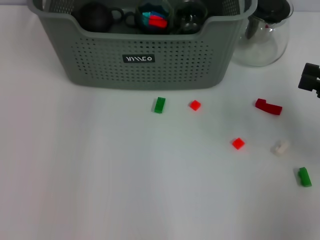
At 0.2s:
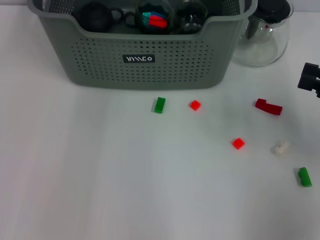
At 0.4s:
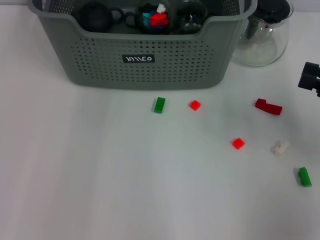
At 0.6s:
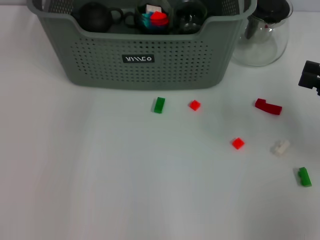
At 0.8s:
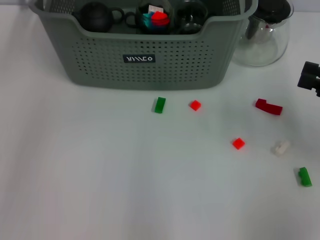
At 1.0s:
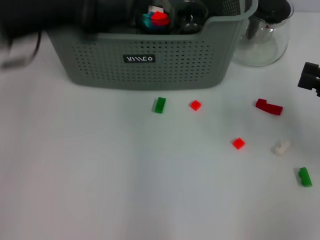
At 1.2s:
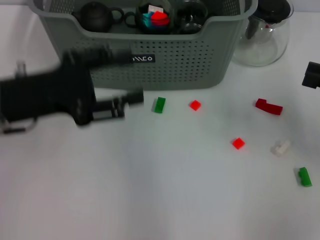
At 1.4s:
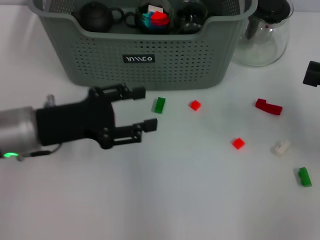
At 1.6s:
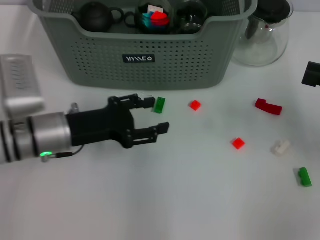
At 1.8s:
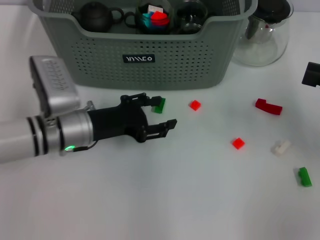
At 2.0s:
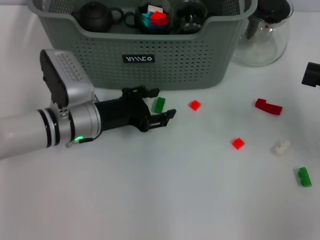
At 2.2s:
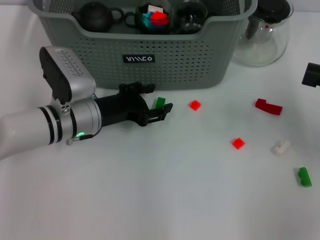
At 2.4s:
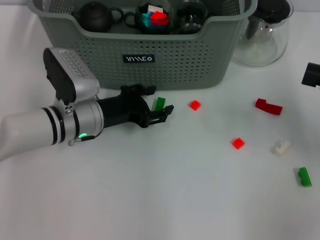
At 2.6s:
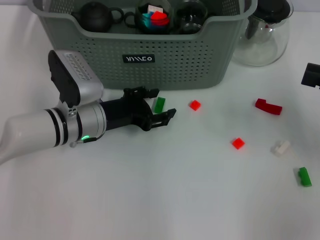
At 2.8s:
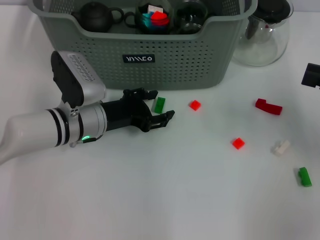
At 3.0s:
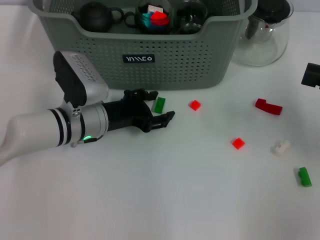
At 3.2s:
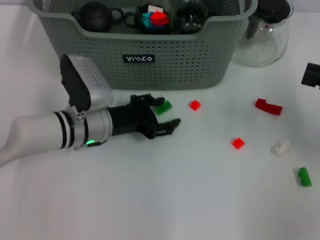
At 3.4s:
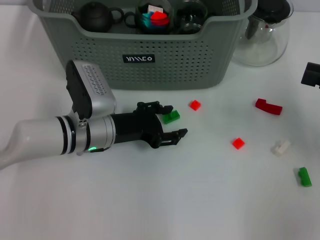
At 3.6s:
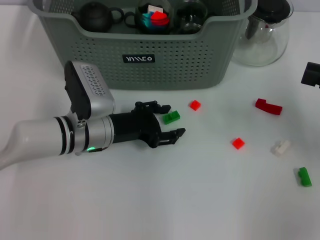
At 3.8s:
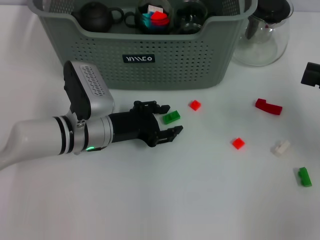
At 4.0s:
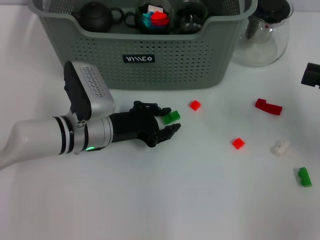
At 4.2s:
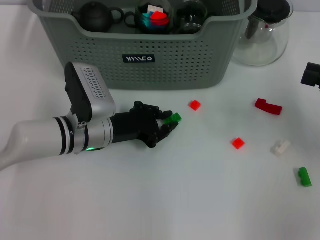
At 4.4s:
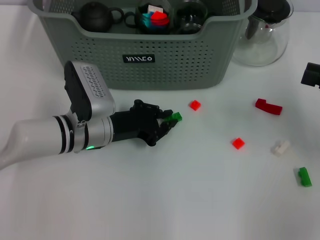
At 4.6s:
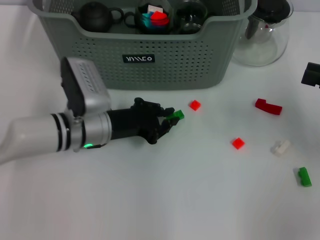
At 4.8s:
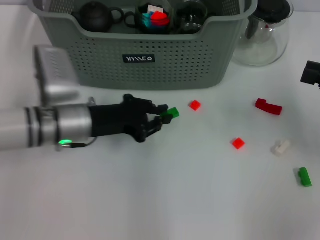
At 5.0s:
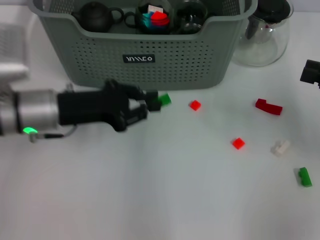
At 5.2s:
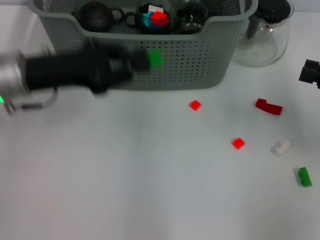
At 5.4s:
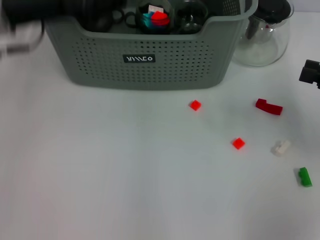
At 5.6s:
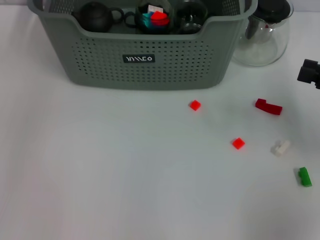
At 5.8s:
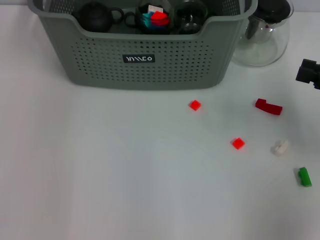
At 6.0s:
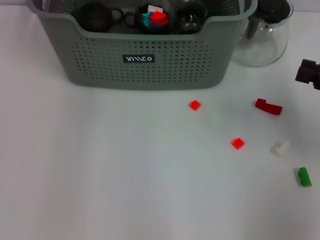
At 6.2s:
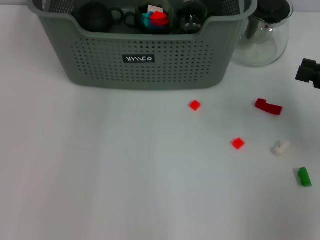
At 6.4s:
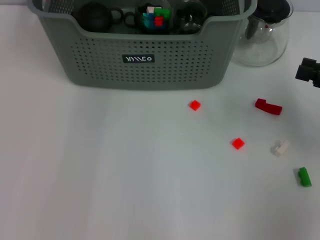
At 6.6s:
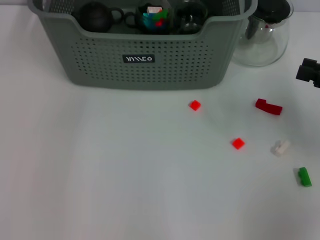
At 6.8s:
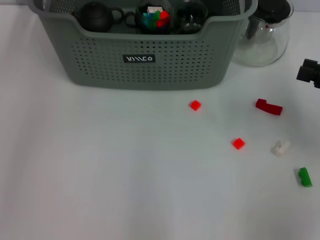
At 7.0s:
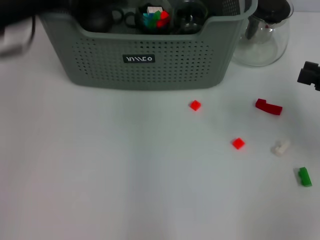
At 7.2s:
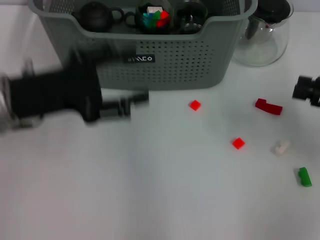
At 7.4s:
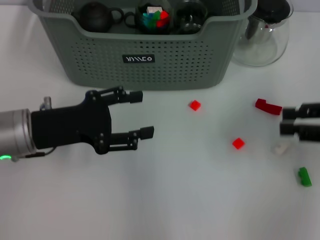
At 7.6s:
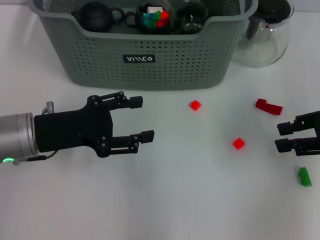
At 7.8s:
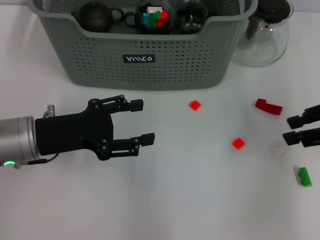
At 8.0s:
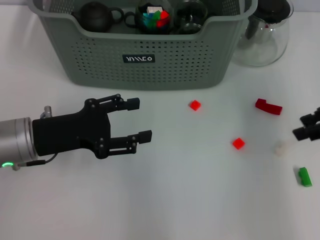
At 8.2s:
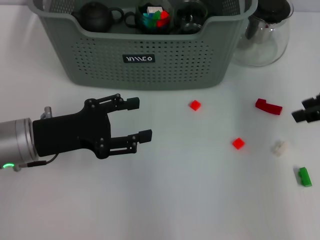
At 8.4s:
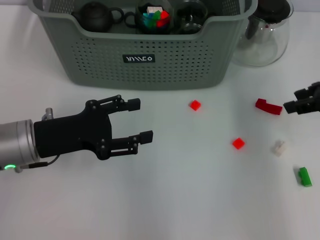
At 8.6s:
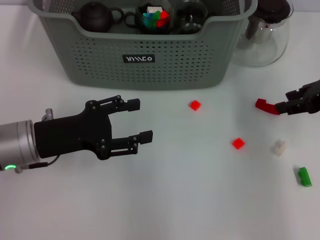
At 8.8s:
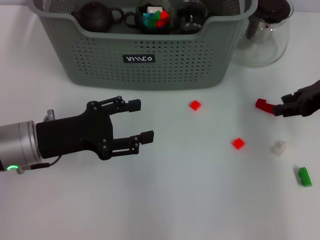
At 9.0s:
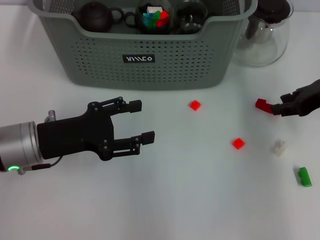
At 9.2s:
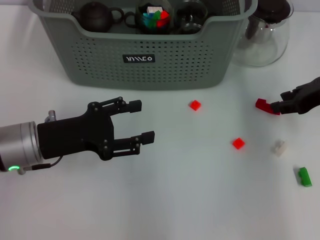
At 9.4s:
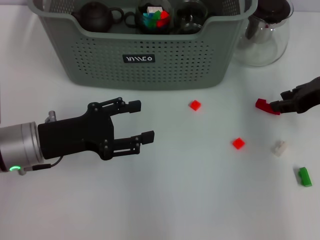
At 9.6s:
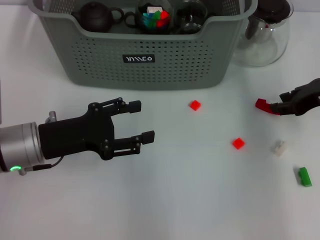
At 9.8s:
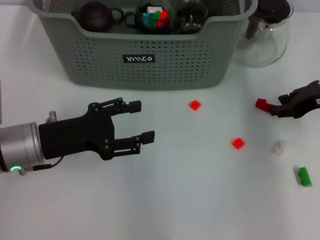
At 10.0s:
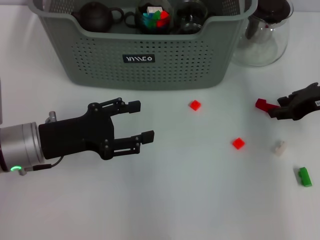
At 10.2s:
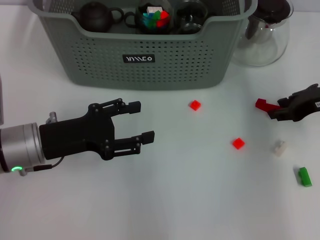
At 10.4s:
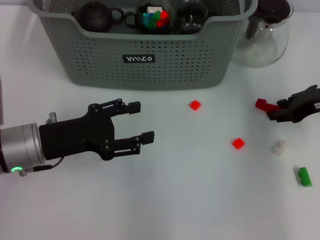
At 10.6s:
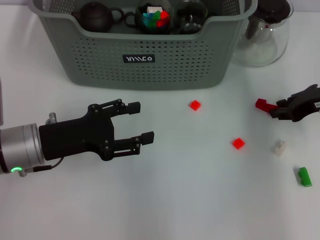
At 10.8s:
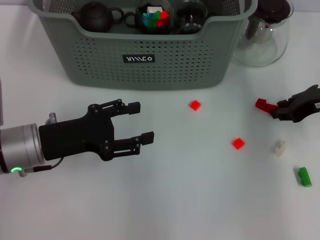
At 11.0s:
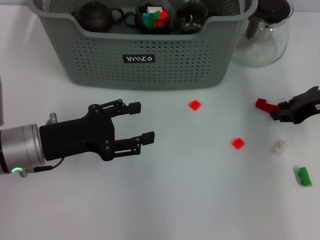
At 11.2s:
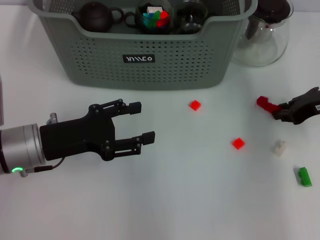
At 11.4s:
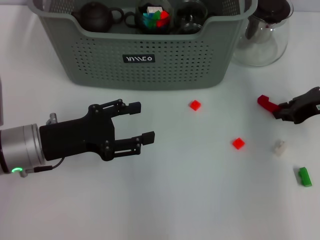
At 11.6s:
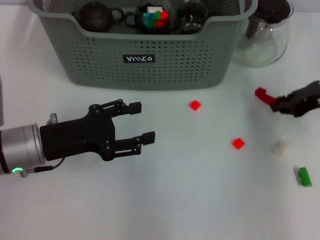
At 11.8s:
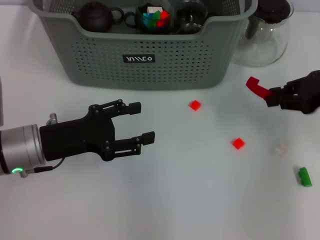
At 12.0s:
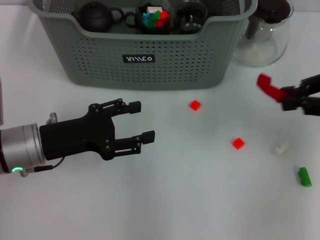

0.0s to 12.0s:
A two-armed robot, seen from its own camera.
Task of the whole recording: pick up the teacup on the table and place it into the storage bin, pick up the block on the table and place it into the storage bin.
Step, 0.4s to 4.2s: Grasp the green block with left gripper.
Step, 4.4s to 6.2s: Place the green block in the storage box with left gripper.
Step, 6.4s to 11.2s: Grasp the red block with right gripper.
0.0s to 1.6s: The left gripper travels backward and downward by approximately 25 cm, and opens up.
1.6s to 3.0s: The left gripper changes place by some 5 cm.
3.0s to 4.4s: The left gripper closes its fingers.
4.4s to 6.0s: The left gripper heads upward and forward, covering some 30 cm.
6.0s to 7.6s: The left gripper goes some 30 cm backward, downward and to the left, and opens.
7.6s to 9.0s: The right gripper goes some 5 cm forward.
9.0s to 10.4s: The grippers make only small movements.
10.4s to 12.0s: The right gripper moves upward and backward, roughly 10 cm.

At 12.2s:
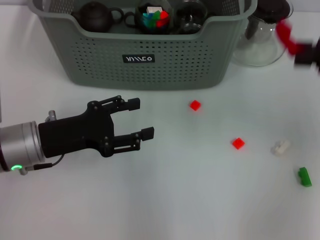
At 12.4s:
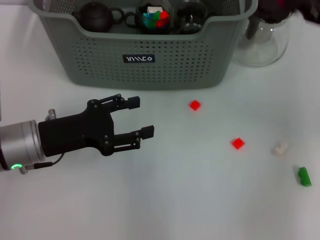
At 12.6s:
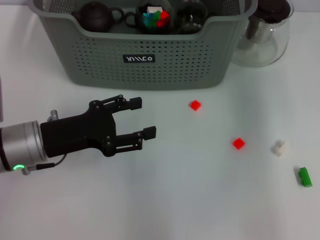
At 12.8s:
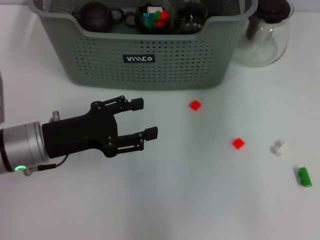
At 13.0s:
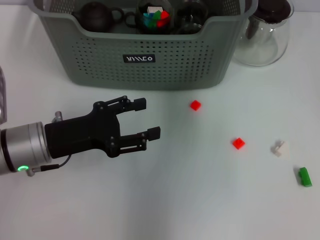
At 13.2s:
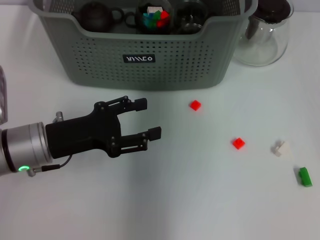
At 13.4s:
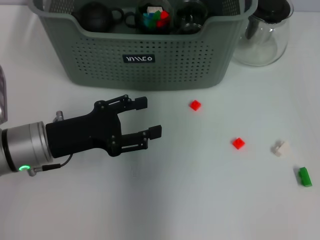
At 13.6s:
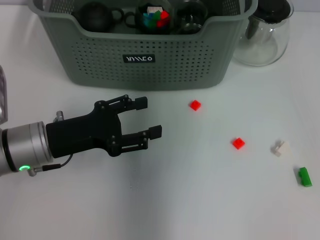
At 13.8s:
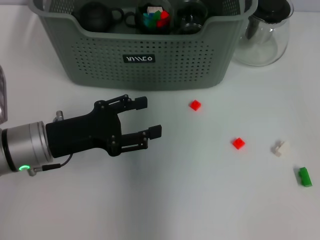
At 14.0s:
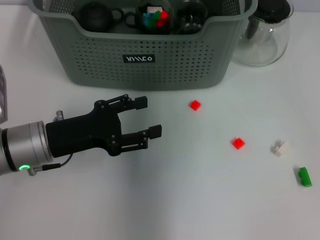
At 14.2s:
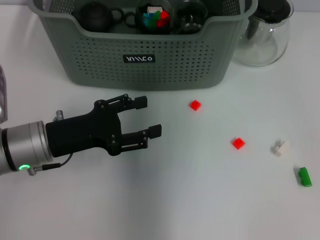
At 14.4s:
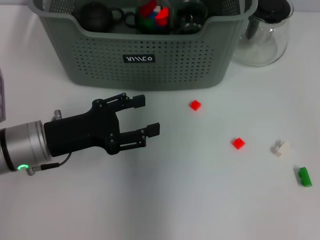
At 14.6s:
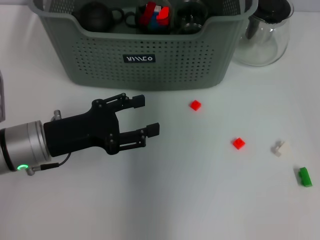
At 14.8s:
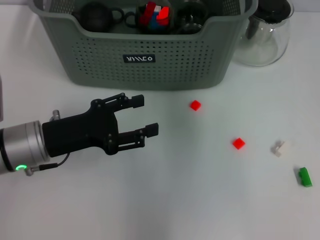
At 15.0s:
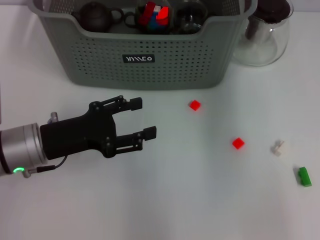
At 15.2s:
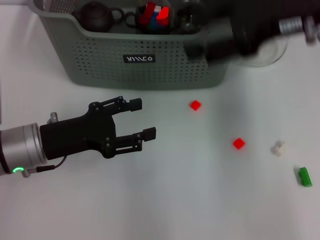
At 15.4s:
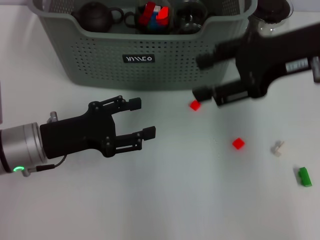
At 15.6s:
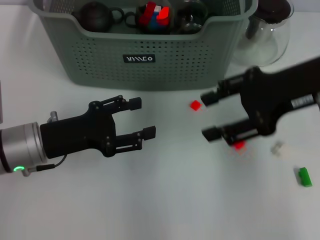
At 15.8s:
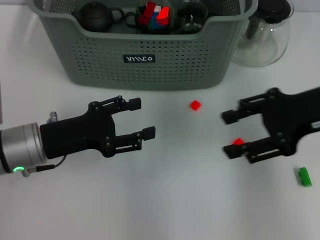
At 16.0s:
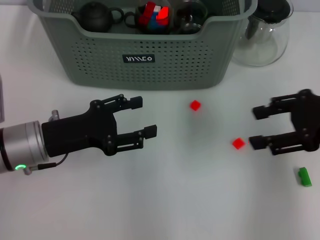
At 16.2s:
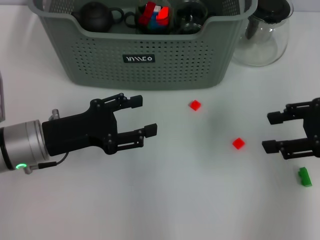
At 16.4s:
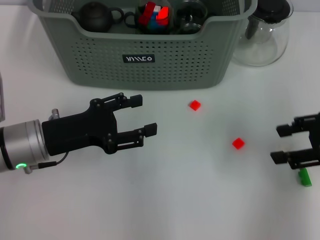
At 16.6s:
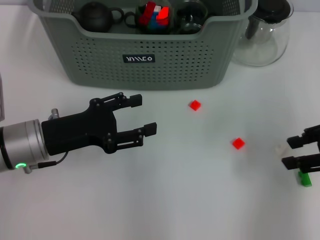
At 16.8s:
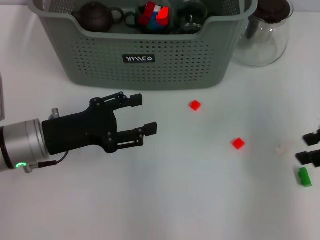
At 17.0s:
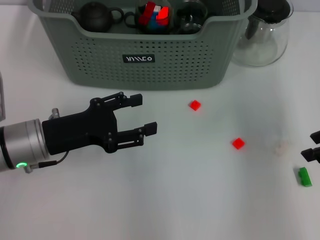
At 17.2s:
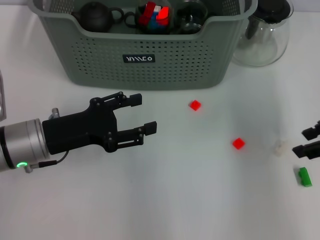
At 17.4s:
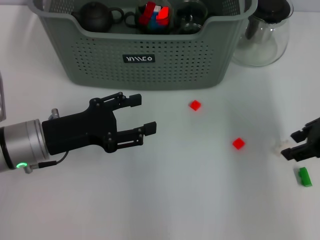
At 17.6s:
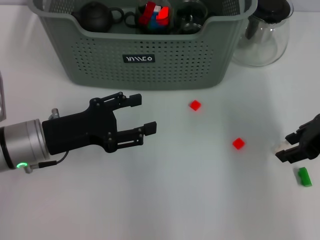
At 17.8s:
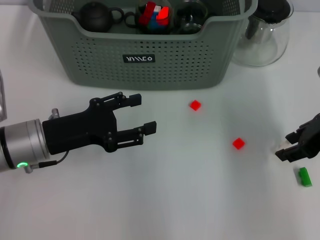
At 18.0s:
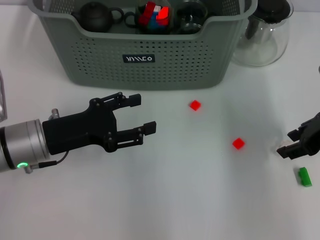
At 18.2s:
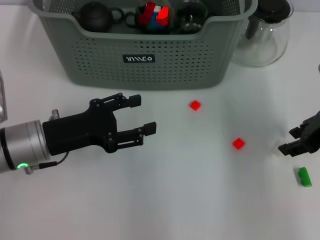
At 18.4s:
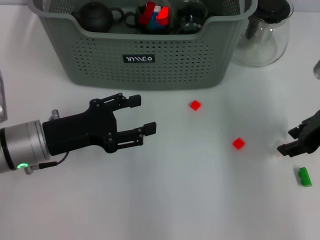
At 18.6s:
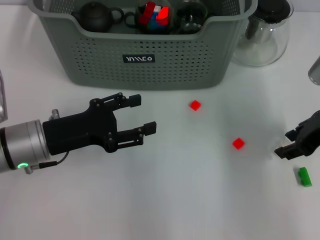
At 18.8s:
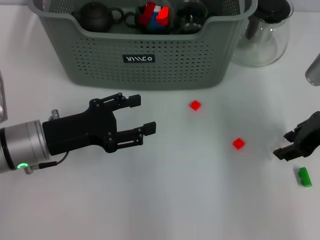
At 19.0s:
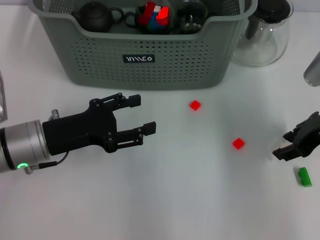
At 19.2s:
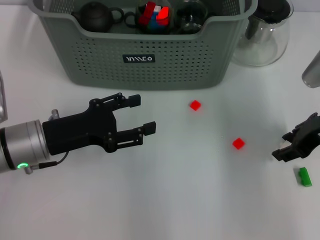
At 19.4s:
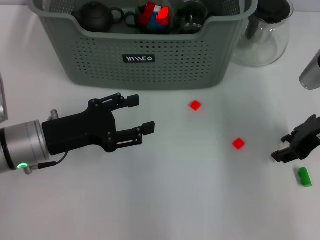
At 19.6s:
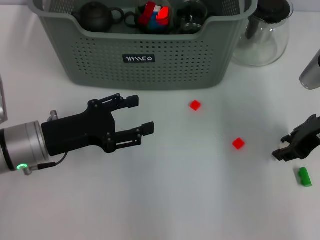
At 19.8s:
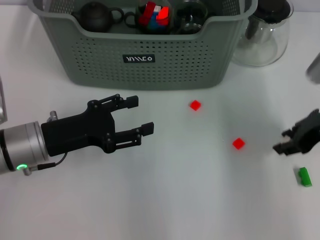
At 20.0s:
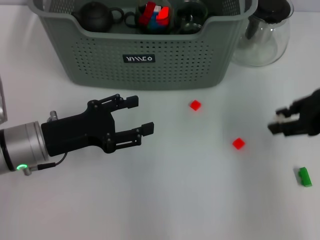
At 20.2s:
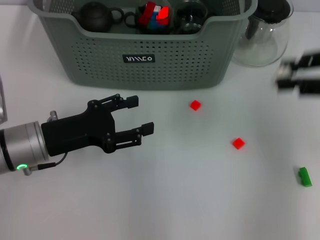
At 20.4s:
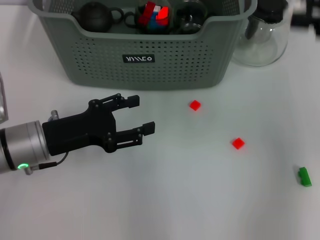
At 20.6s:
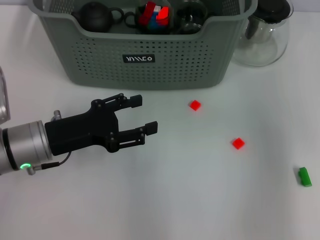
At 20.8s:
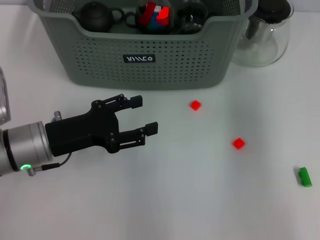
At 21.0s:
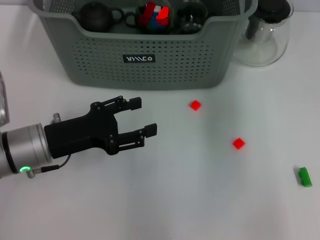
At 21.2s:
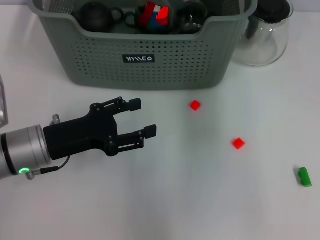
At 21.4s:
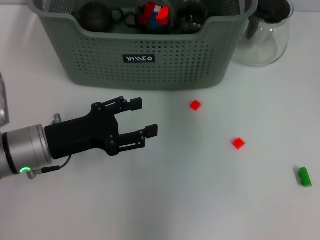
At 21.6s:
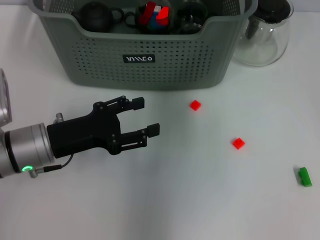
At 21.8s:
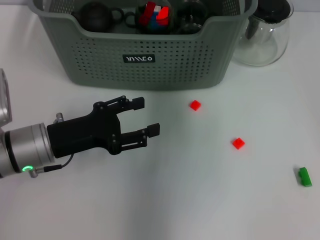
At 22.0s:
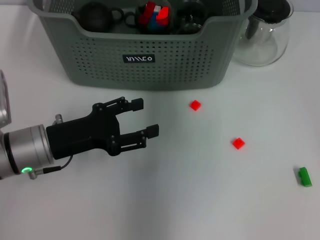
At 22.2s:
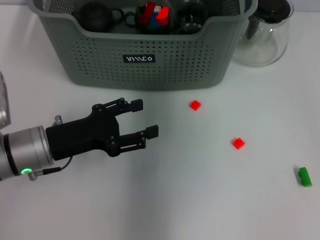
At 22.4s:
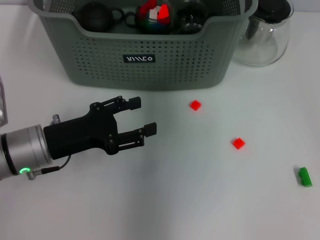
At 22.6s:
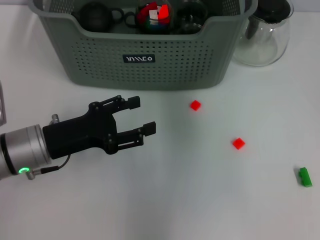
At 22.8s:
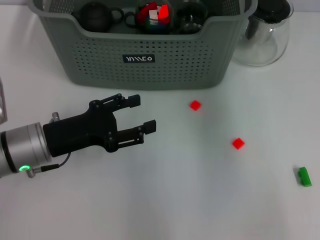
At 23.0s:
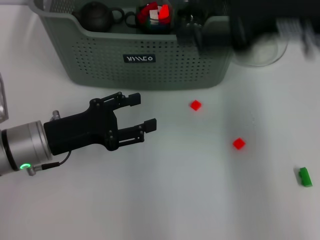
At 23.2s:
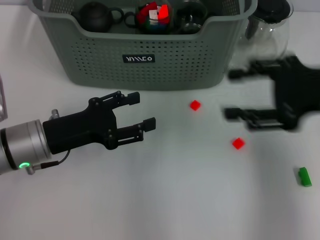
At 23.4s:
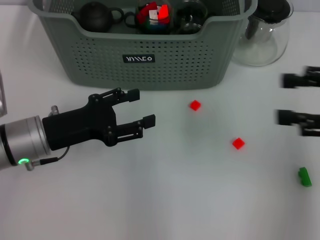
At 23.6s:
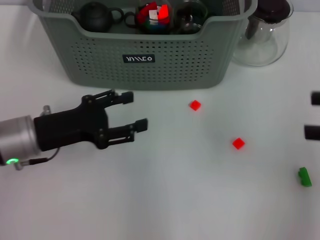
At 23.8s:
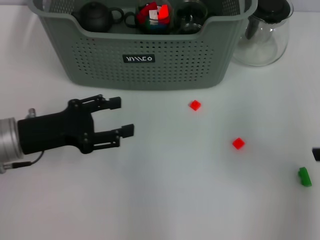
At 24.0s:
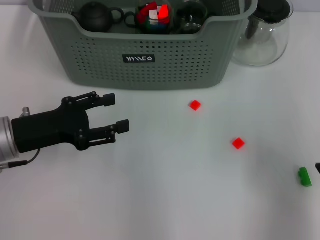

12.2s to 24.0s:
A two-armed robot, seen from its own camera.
Task of the whole recording: pick up the teacup on the table and place it into the storage bin, pick up the block on the table and place it into the storage bin.
Step, 12.2s to 14.2s: Place the red block in the storage box with right gripper.
Step, 14.4s to 19.6s: Grasp the white block with right gripper.
Step, 19.8s to 22.2s: Place the white block in the storage box with right gripper.
12.2s to 13.6s: The right gripper heads to the left and forward, covering about 30 cm.
13.6s to 15.2s: The right gripper travels to the right and backward by some 20 cm, and opens.
15.2s to 16.6s: The right gripper shifts approximately 15 cm to the right, downward and backward.
16.6s to 18.2s: The right gripper shifts by approximately 5 cm.
18.2s to 19.6s: The grippers stay close to where they were, moving slightly.
19.6s to 21.0s: The right gripper travels upward, forward and to the left by roughly 20 cm.
21.0s to 22.6s: The right gripper heads to the left and forward, covering approximately 10 cm, and opens its fingers.
22.6s to 24.0s: The right gripper moves to the right and backward, about 30 cm.
